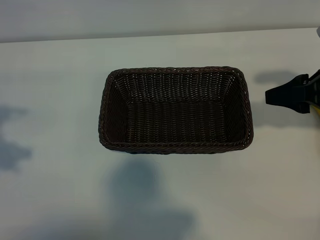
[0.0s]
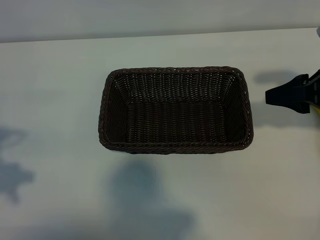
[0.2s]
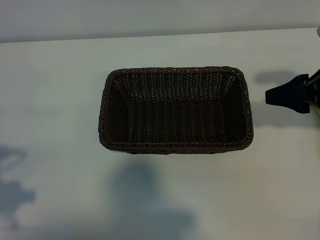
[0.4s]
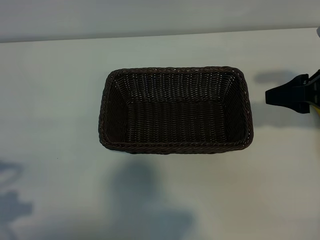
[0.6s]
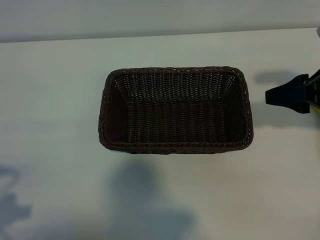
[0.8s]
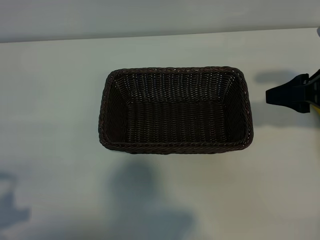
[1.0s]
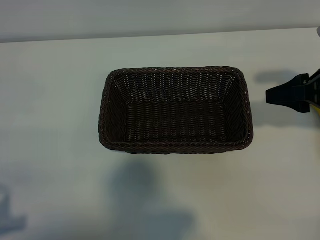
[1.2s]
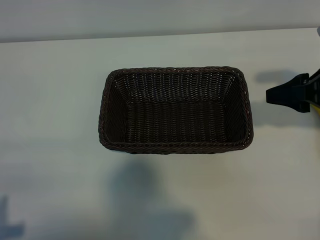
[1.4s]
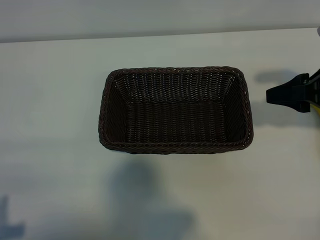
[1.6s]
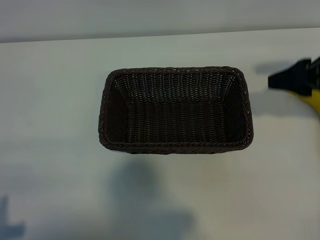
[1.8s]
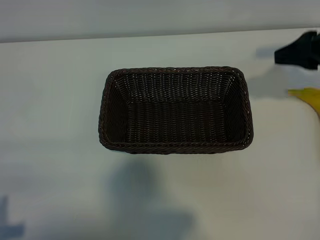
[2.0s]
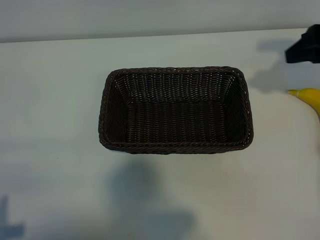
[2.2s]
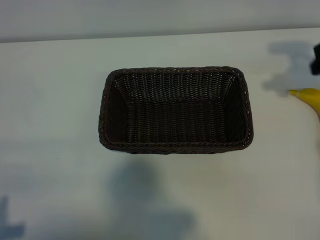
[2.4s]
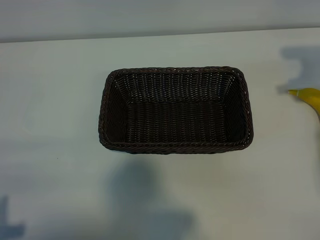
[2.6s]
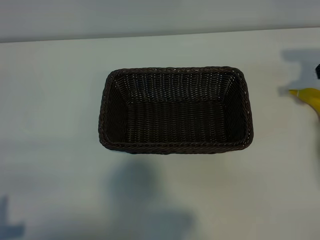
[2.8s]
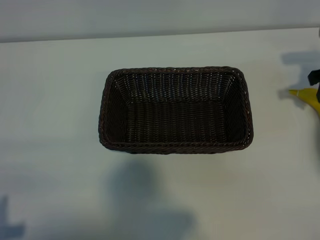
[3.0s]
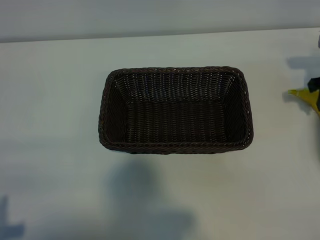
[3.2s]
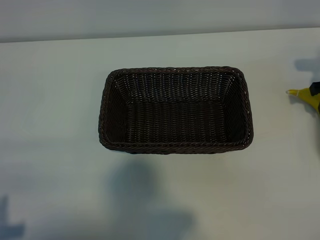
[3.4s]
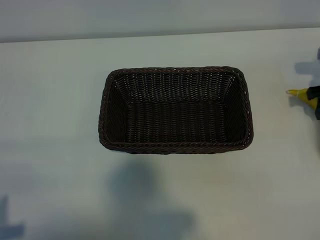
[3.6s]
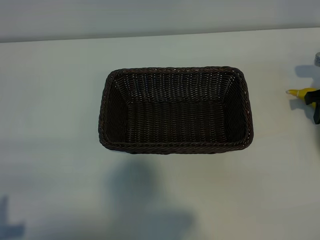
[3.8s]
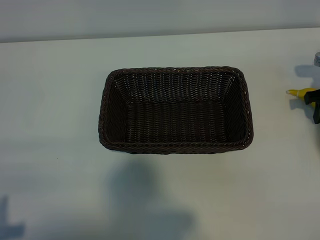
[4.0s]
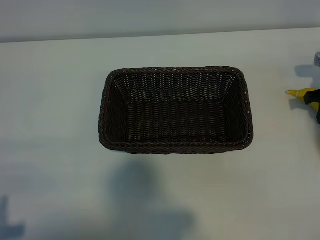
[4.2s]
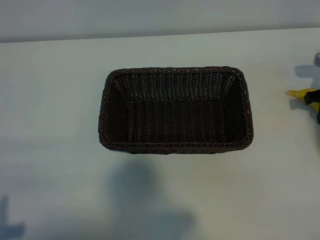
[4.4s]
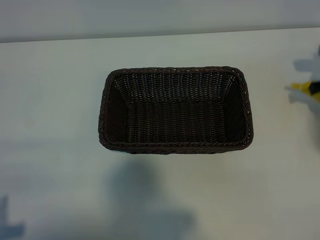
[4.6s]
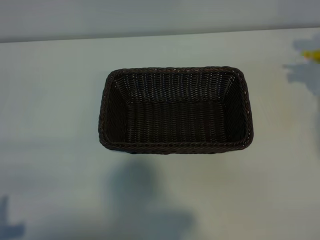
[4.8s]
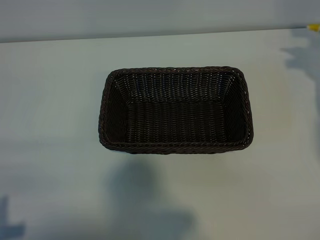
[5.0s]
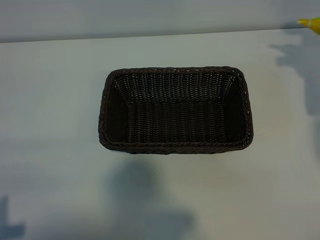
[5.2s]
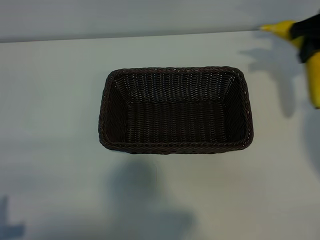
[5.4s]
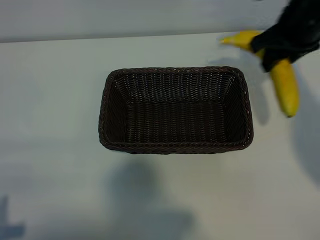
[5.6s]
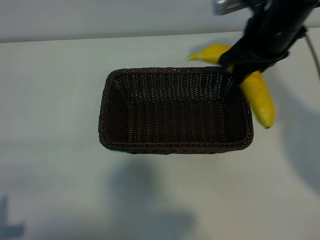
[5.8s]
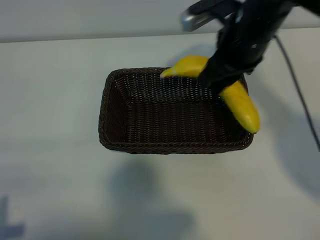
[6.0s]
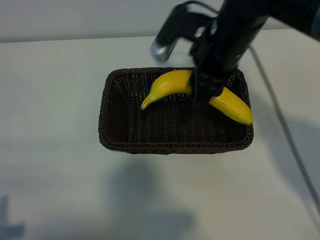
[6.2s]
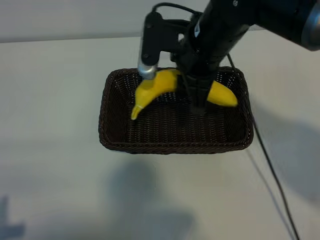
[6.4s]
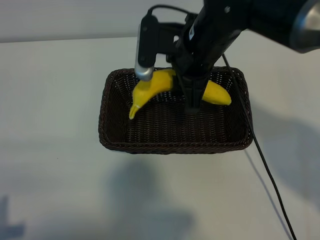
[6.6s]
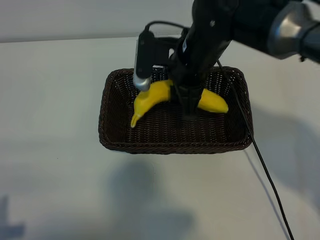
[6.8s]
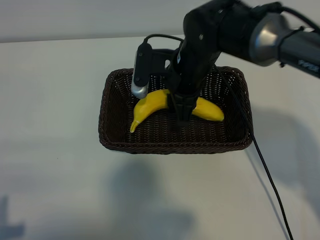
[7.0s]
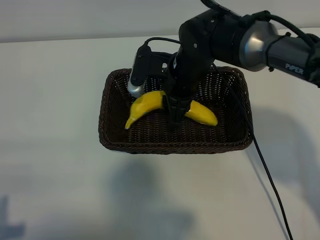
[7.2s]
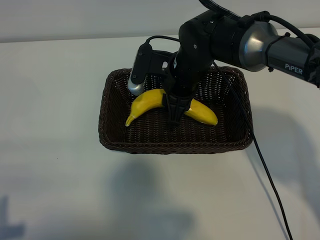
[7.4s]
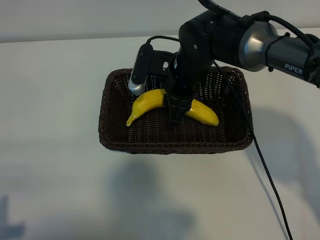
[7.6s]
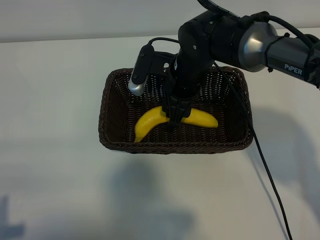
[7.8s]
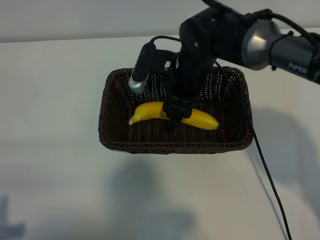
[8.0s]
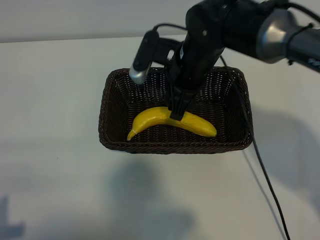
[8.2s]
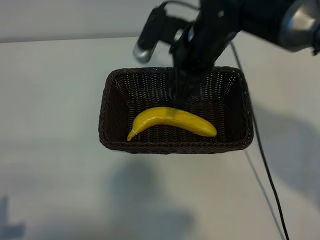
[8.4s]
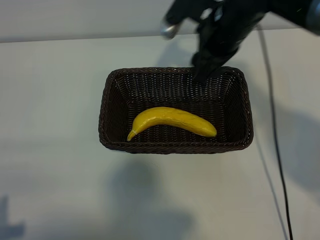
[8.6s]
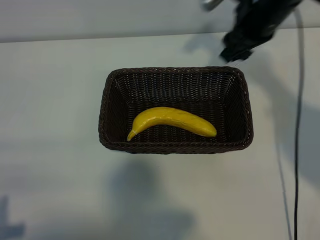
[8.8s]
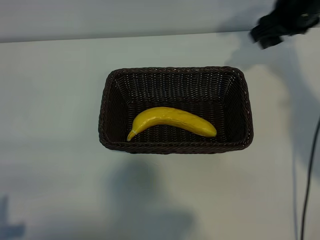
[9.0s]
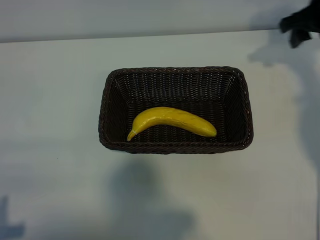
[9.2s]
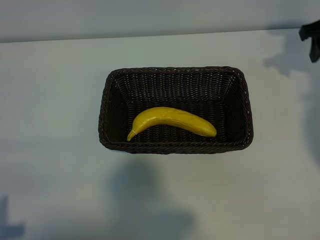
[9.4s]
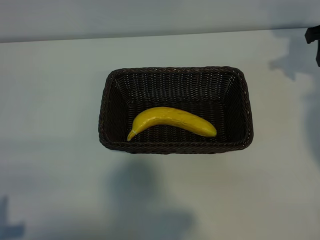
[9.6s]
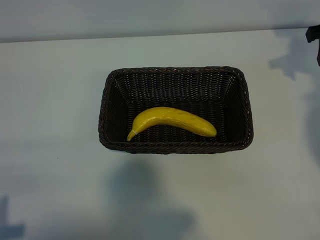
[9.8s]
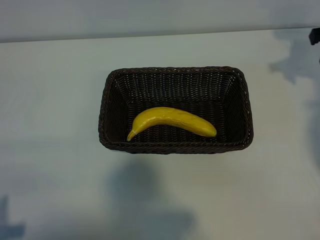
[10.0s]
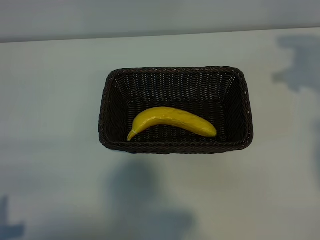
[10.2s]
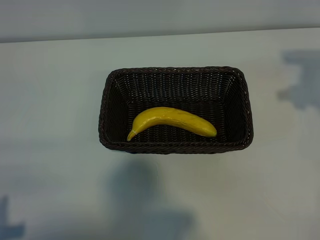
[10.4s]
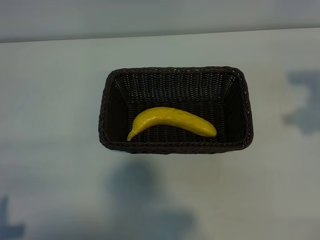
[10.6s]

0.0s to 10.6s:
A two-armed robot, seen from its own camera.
Task of the whole recording: pick up the banana and put it into the basket.
Step, 0.0s to 4.4s: Grasp the banana with right gripper.
Step, 4.6s to 8.4s: Place the banana in the basket with right gripper.
